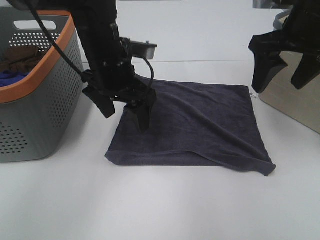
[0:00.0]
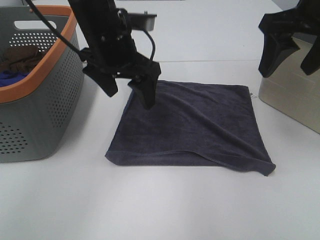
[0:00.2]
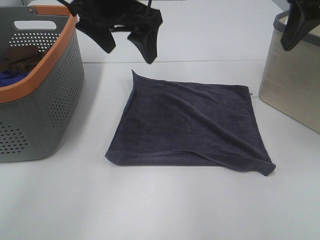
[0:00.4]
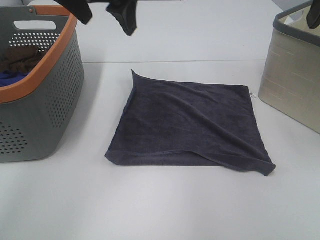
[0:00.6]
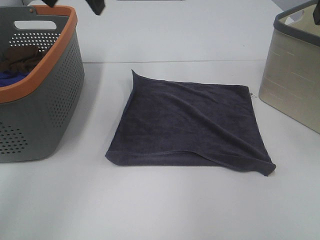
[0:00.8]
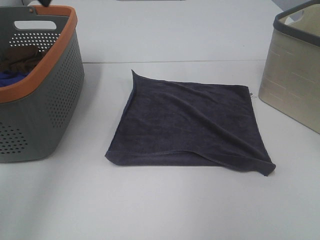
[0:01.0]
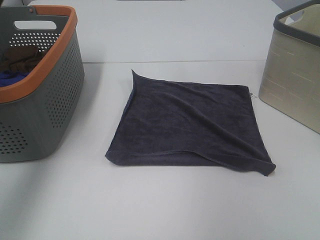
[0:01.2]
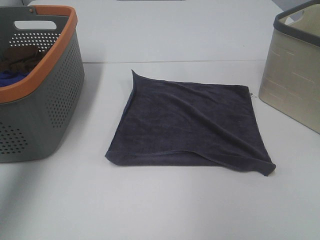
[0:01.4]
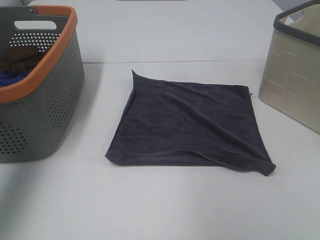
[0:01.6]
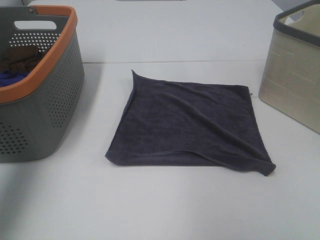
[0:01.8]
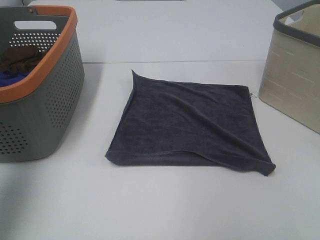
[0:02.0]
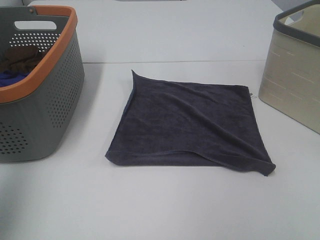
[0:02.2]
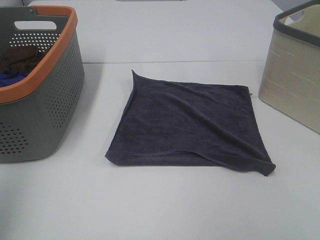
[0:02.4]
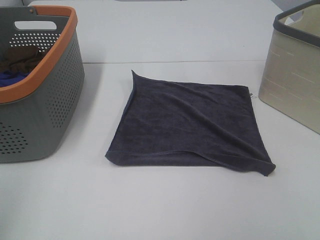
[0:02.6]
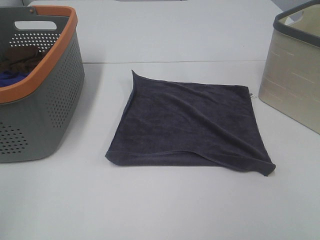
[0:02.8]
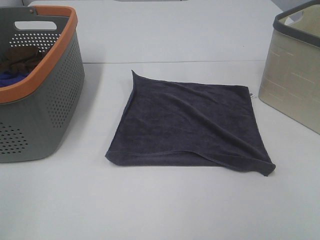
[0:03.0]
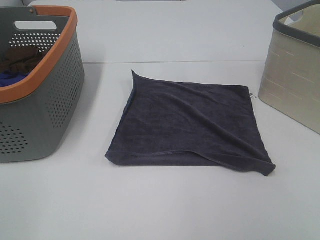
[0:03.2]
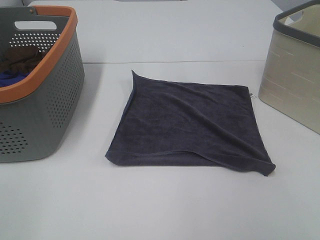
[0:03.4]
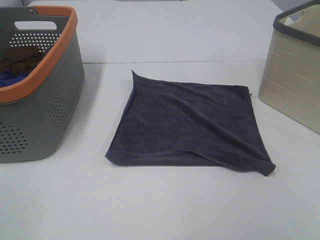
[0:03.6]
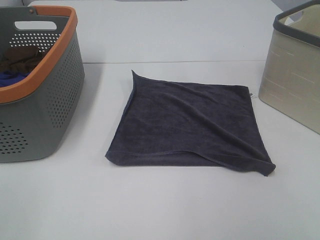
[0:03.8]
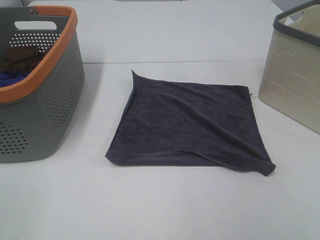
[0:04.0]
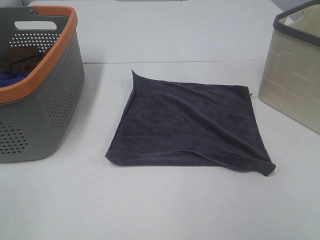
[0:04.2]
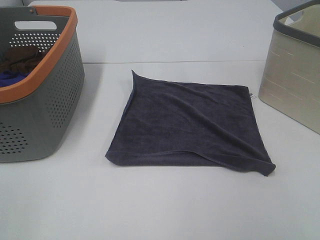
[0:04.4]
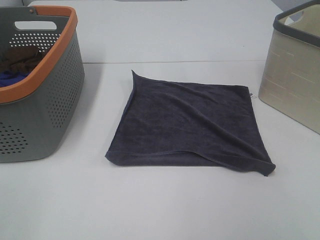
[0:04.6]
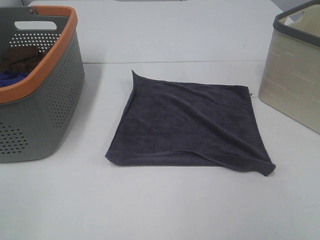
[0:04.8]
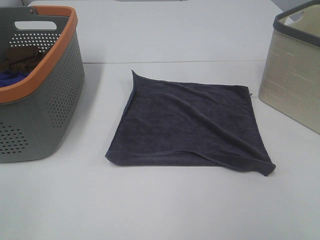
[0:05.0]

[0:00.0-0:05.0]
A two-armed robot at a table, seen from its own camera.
Task of the whole recording: Remove the towel and place it.
0:00.0 to 0:01.6: The left gripper is displaced to the left and upward by some 30 cm, while the right gripper heads backward, upward and to the right, covering roughly 20 cm.
0:01.6 to 0:03.4: The left gripper is displaced backward and downward by approximately 30 cm.

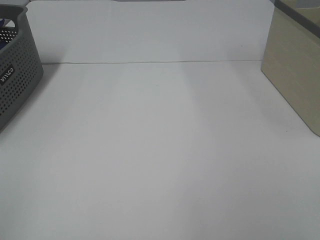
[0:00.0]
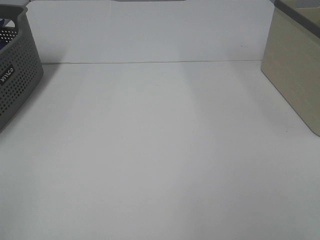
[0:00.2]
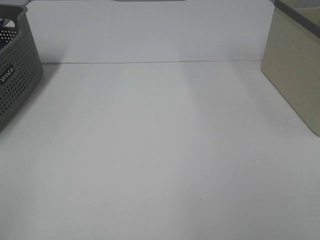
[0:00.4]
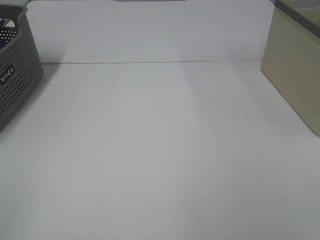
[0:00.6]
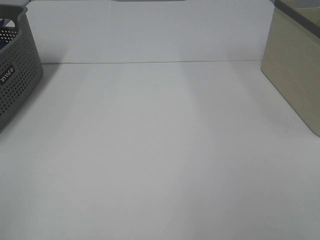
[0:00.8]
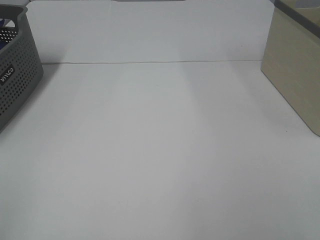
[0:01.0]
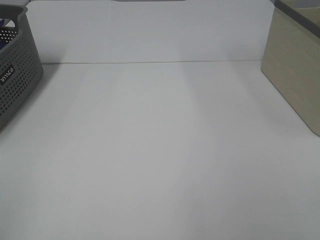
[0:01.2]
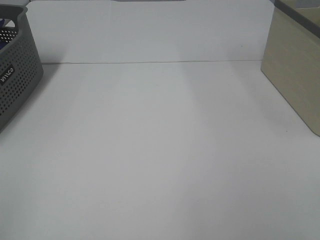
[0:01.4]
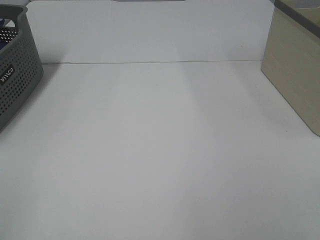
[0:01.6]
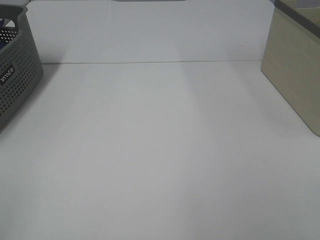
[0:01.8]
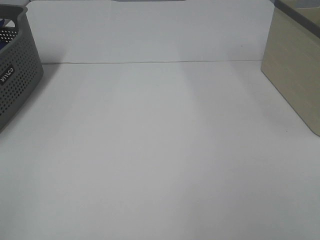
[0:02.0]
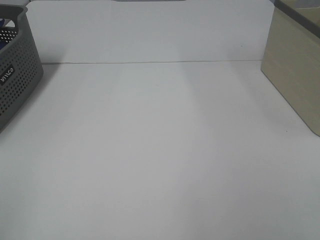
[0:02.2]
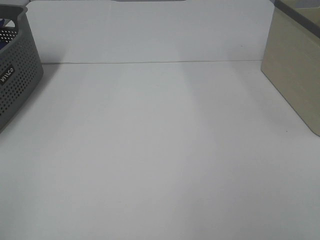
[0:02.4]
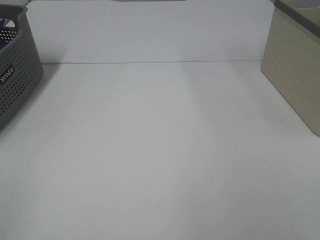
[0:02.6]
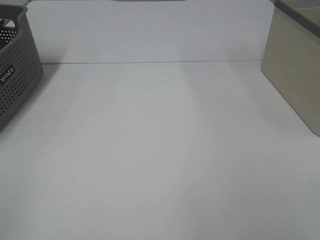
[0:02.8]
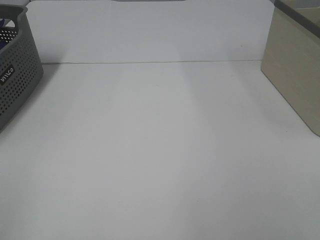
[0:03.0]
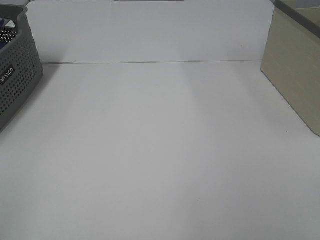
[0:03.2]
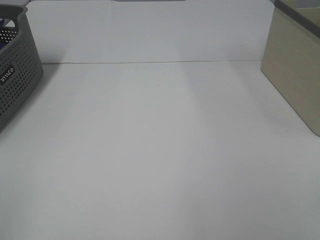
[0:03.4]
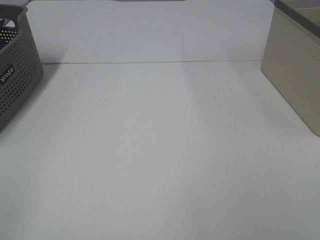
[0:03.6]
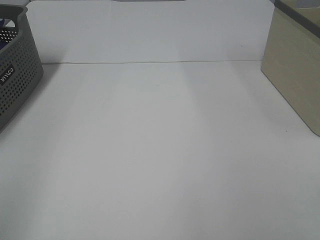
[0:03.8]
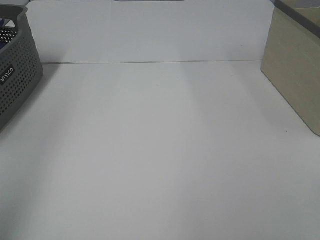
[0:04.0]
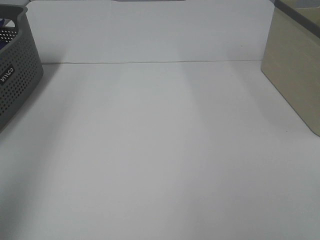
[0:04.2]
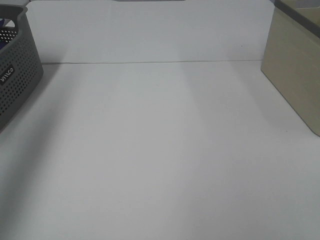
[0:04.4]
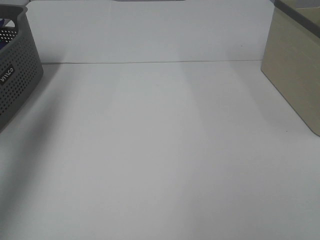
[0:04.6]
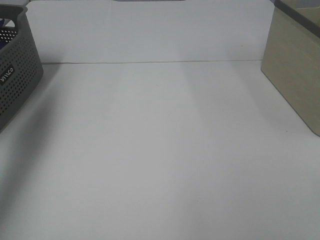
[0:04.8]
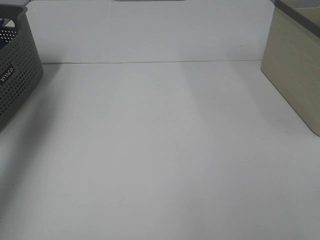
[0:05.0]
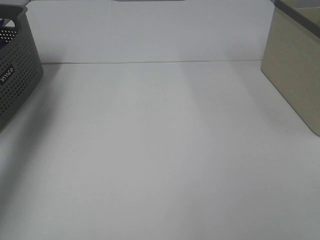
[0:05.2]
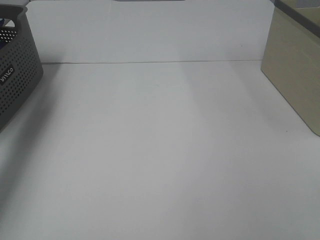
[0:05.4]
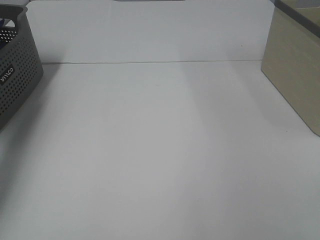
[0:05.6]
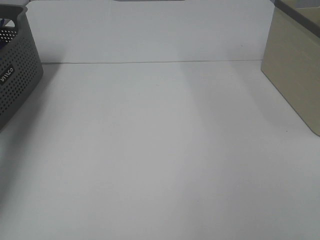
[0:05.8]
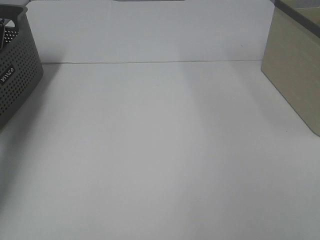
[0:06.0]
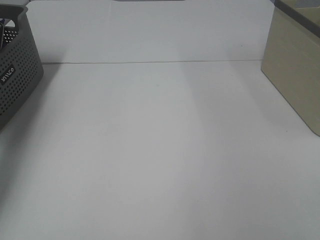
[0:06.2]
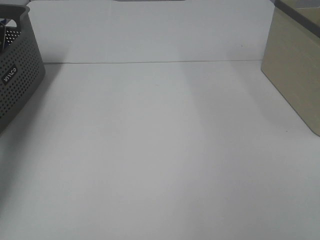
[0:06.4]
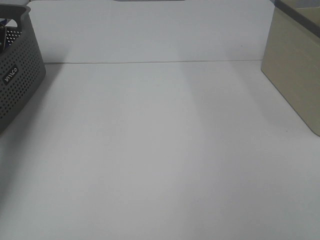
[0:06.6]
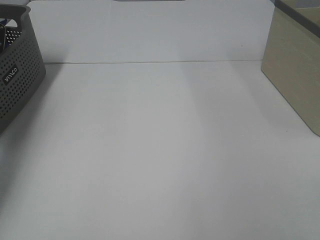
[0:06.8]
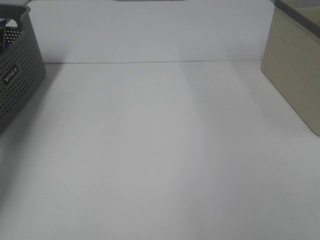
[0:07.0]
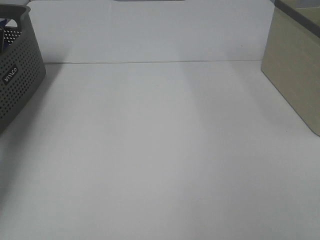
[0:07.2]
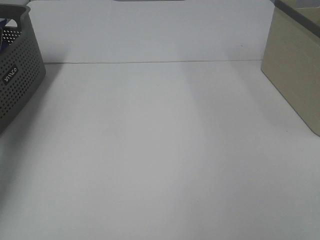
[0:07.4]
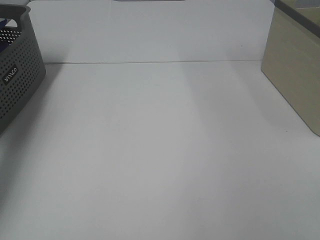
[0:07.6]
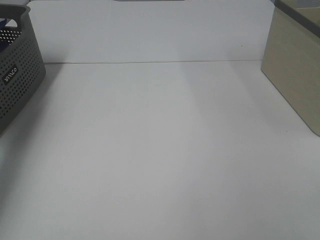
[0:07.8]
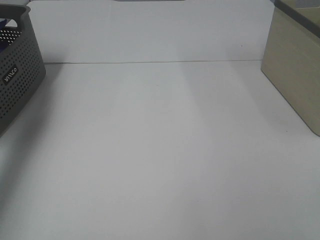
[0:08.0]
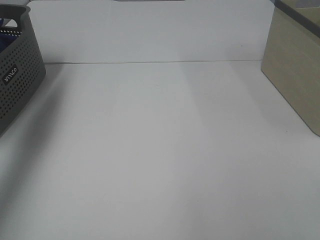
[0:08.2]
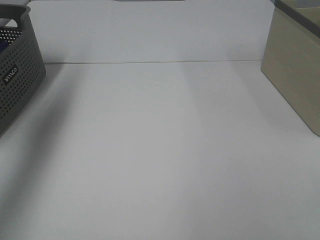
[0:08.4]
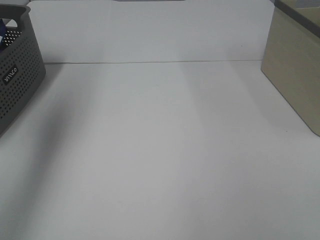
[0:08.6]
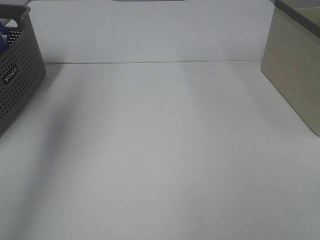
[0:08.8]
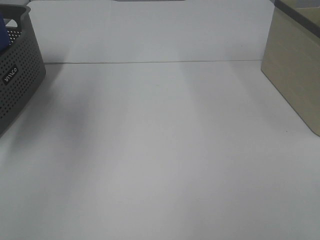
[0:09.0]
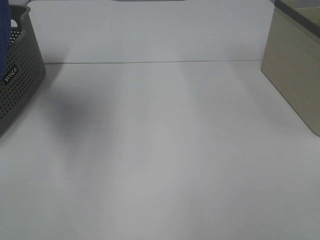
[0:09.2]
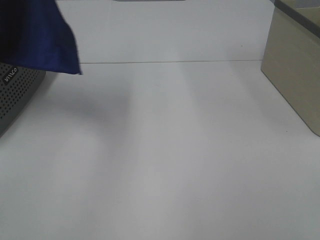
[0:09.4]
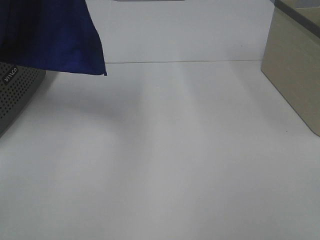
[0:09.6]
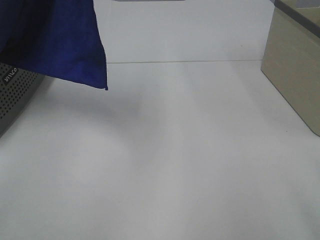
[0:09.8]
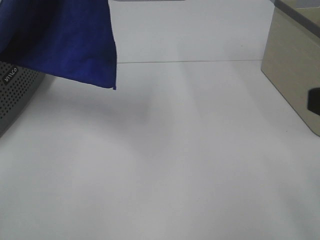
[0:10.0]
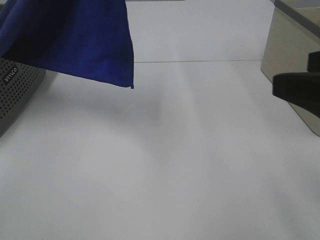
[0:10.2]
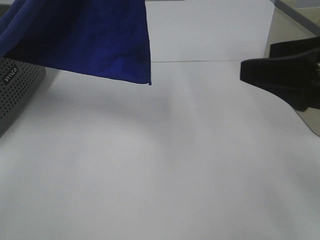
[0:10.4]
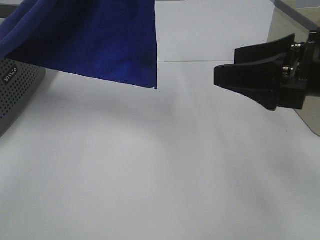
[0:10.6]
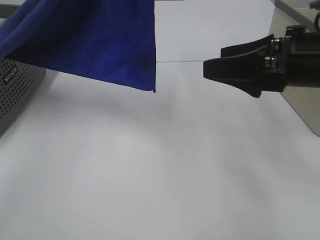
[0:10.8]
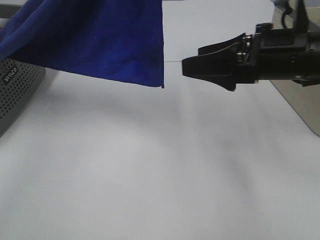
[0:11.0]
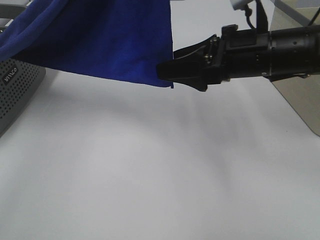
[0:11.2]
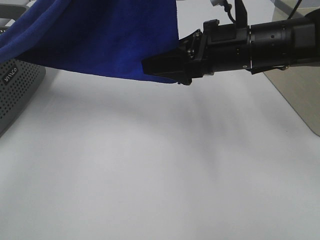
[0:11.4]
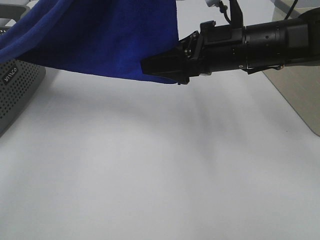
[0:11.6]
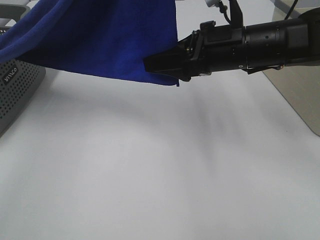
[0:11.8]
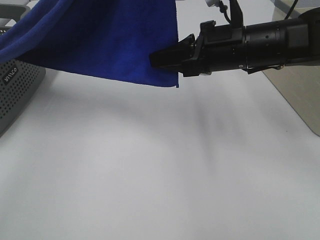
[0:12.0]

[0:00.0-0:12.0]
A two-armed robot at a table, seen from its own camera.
Task of the whole recording: Remove the towel and place it.
0:00.0 to 0:03.0: The two grippers keep their place.
0:03.0 to 0:04.4: The left gripper is displaced forward and upward by roughly 30 cm.
0:04.4 to 0:06.0: The left gripper shifts roughly 35 cm downward and forward.
0:07.6 to 0:09.0: The left gripper travels upward, backward and to the right by approximately 40 cm.
0:09.0 to 0:10.4: The right gripper heads forward, covering about 20 cm; the left gripper goes some 15 cm to the right.
0:10.4 to 0:12.0: The right gripper is displaced forward, to the left and downward by approximately 20 cm, and closes up.

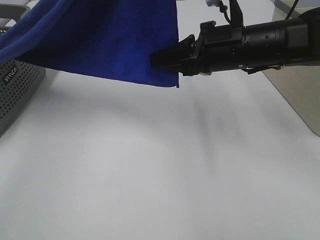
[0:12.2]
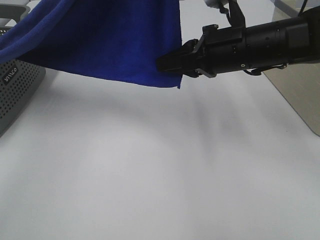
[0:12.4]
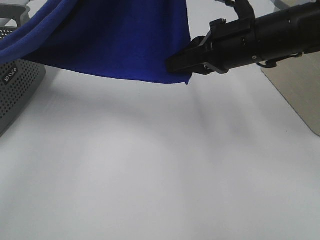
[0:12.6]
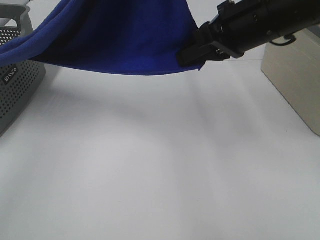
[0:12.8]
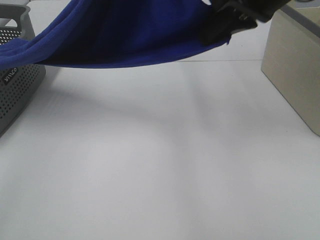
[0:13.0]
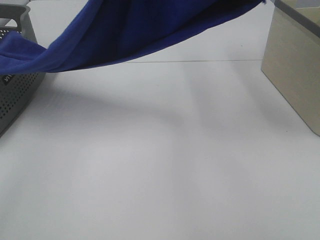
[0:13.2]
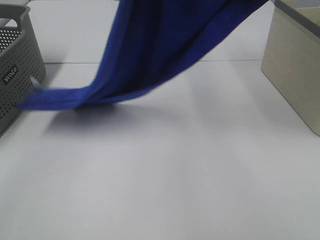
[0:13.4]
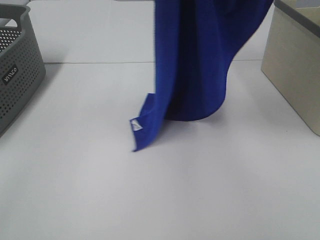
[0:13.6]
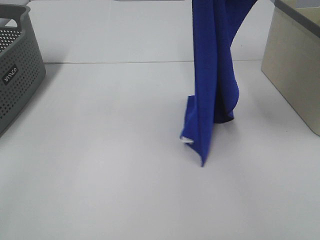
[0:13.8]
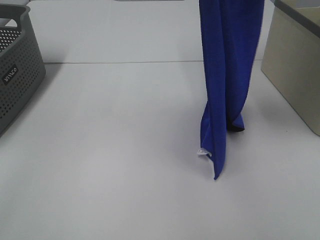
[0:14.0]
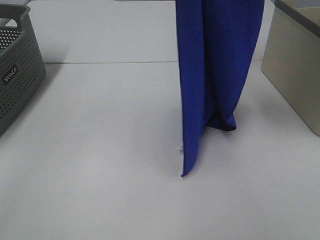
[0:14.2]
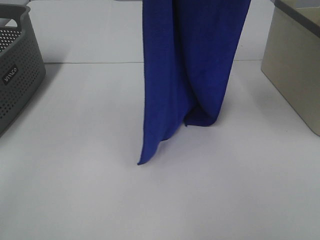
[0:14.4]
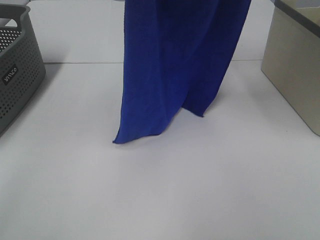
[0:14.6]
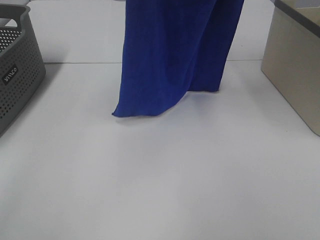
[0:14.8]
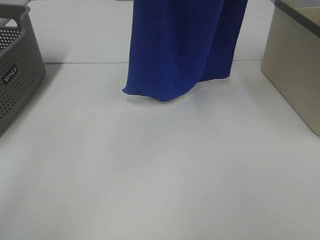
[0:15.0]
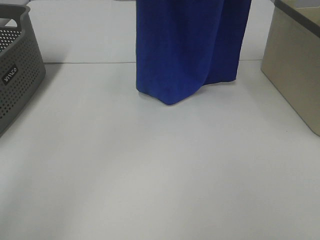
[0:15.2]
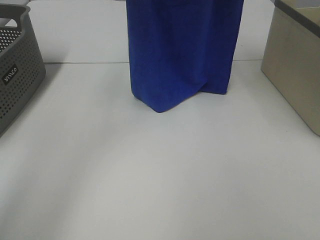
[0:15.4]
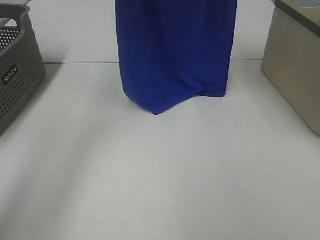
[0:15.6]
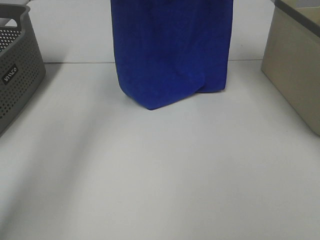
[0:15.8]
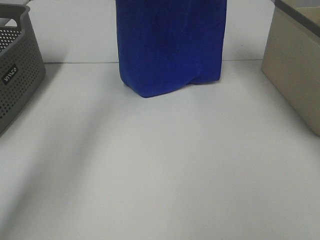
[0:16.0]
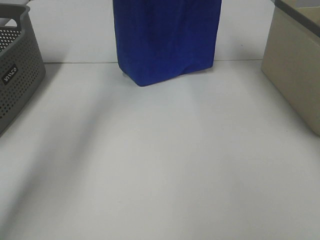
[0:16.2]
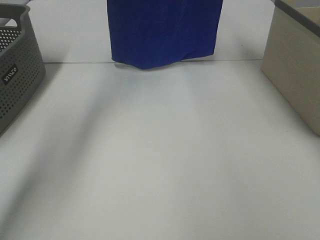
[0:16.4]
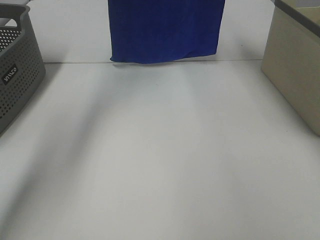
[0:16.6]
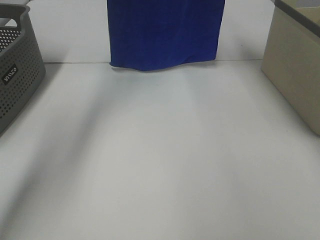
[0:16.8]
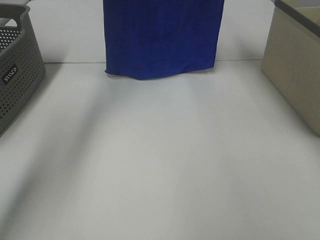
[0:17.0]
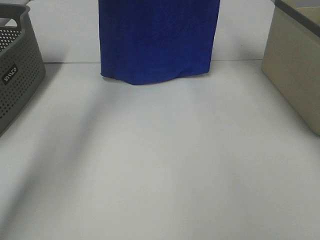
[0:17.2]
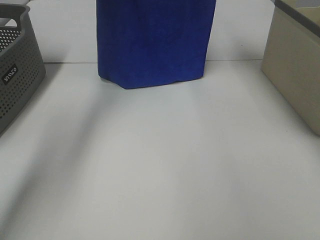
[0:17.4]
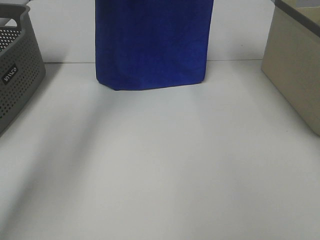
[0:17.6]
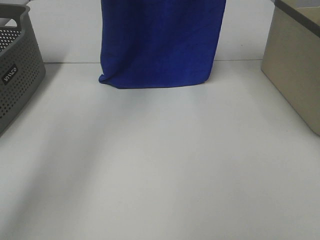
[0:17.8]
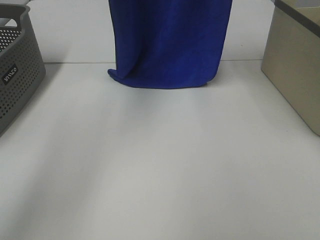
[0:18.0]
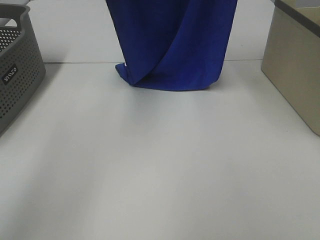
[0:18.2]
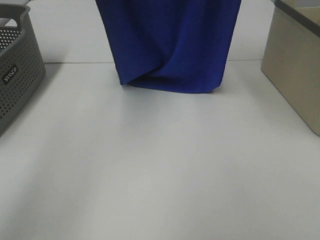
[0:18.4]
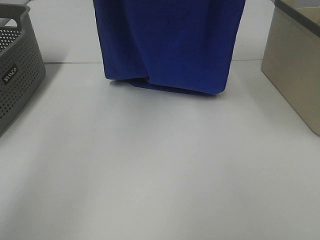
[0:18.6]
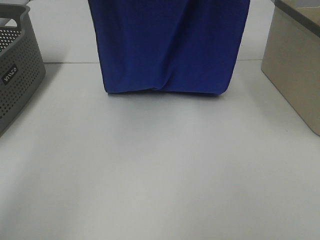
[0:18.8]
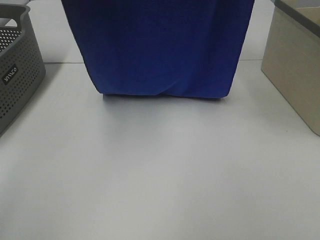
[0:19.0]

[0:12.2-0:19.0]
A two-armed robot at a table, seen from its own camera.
Task of the whole recording: Remove the towel and place it.
Step, 0:12.8 to 0:19.0: Left hand: spread the blue towel flat on the table.
Step, 0:12.8 to 0:19.0: Right hand: spread the blue towel flat on the table.
0:12.2 to 0:13.6: The right gripper shifts roughly 25 cm upward.
0:13.6 to 0:15.0: The left gripper travels forward by roughly 10 cm, while the right gripper is displaced upward by about 5 cm.
0:15.0 to 0:16.2: Both grippers travel together forward, some 15 cm.
0:16.2 to 0:17.6: The grippers stay close to where they were, moving slightly.
0:17.6 to 0:19.0: Both grippers move backward, about 15 cm.
